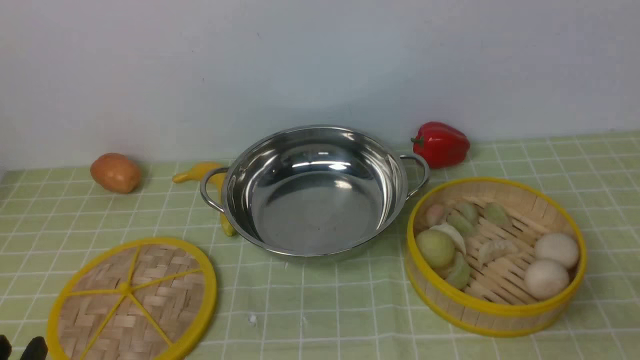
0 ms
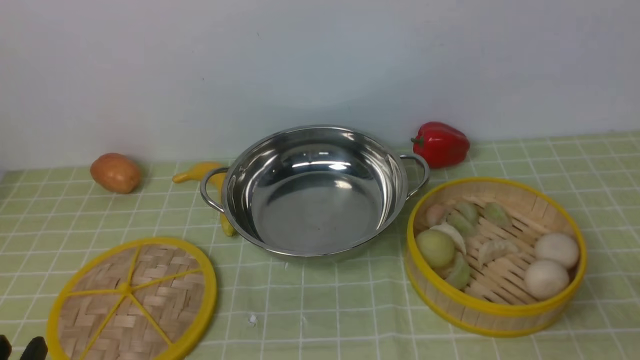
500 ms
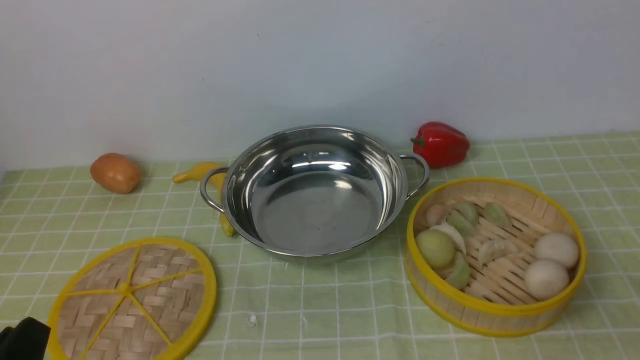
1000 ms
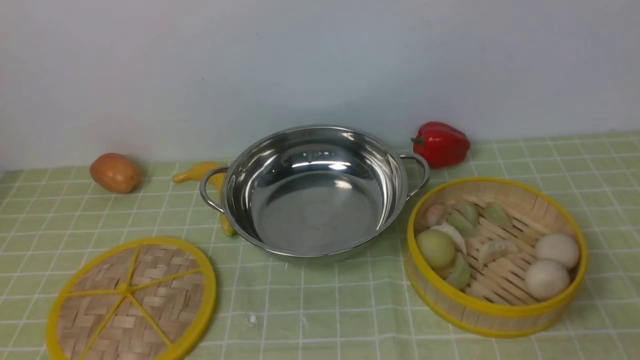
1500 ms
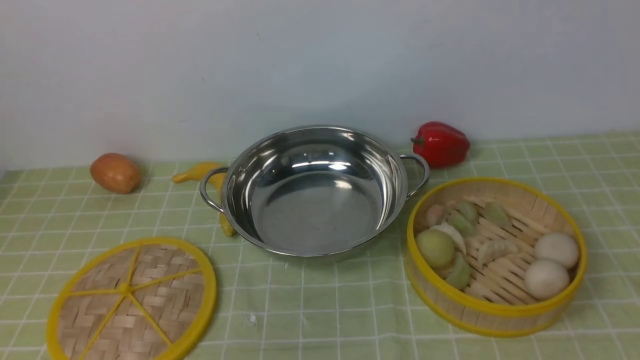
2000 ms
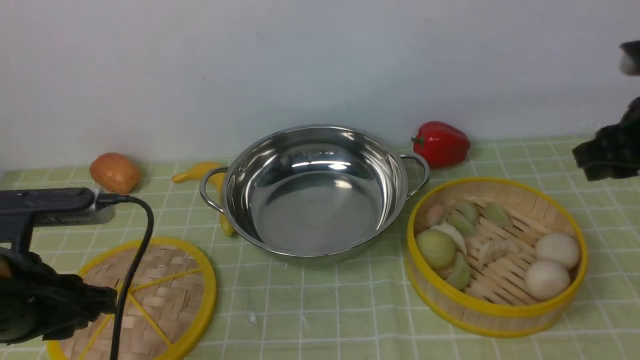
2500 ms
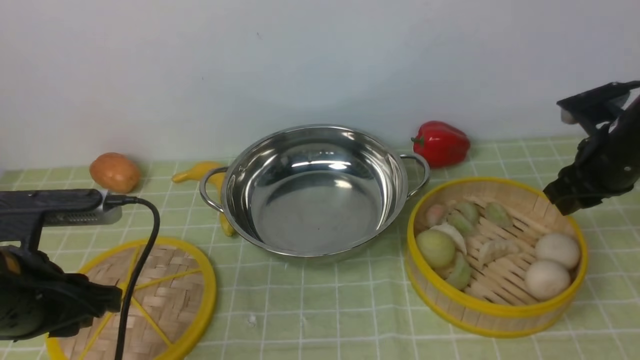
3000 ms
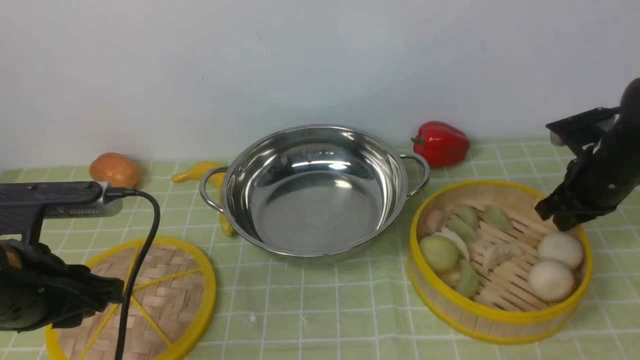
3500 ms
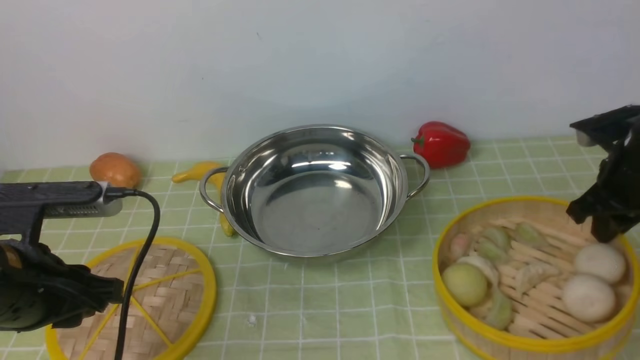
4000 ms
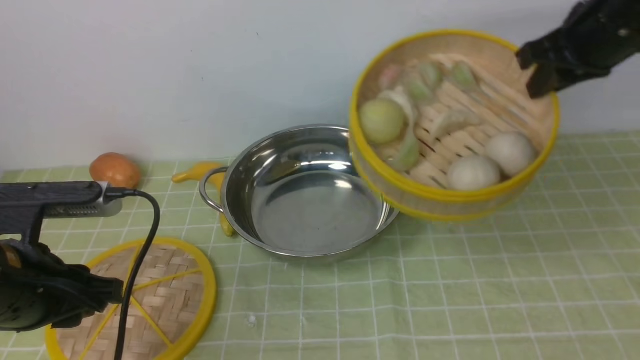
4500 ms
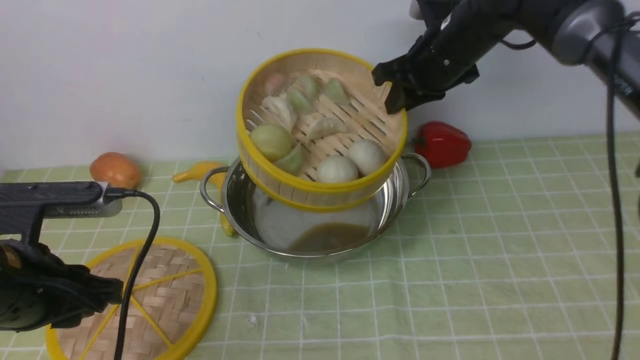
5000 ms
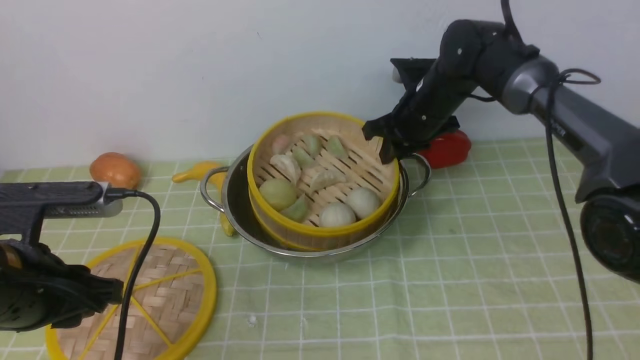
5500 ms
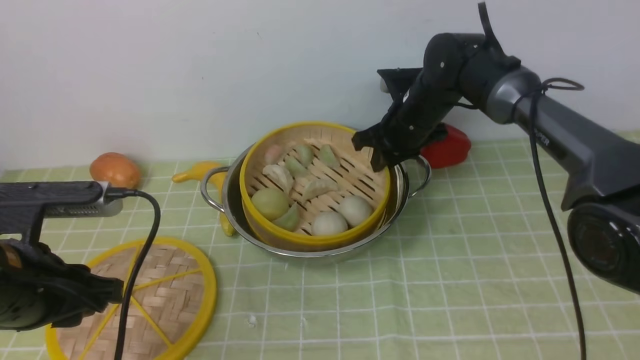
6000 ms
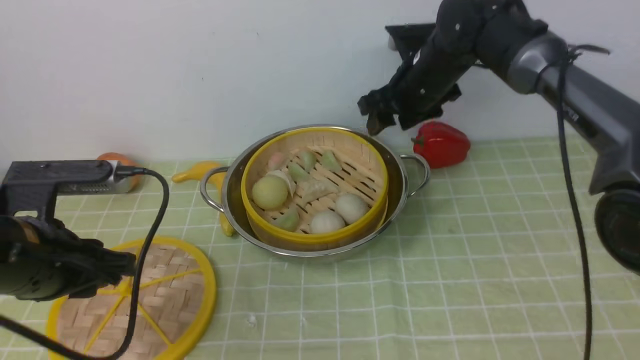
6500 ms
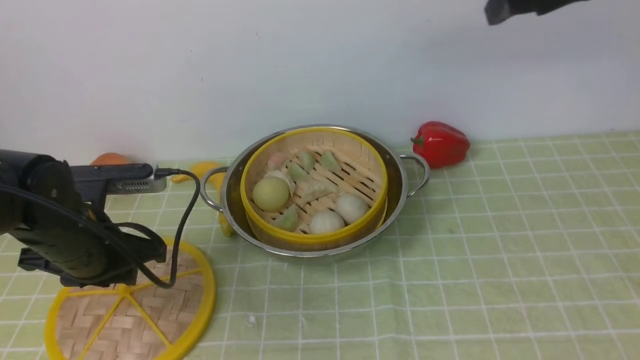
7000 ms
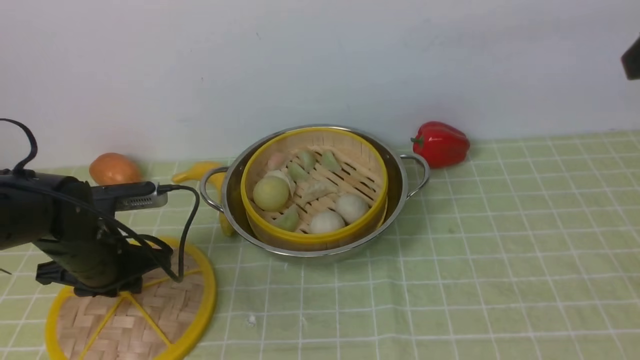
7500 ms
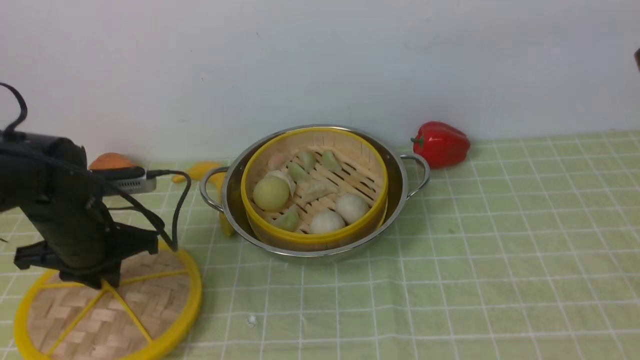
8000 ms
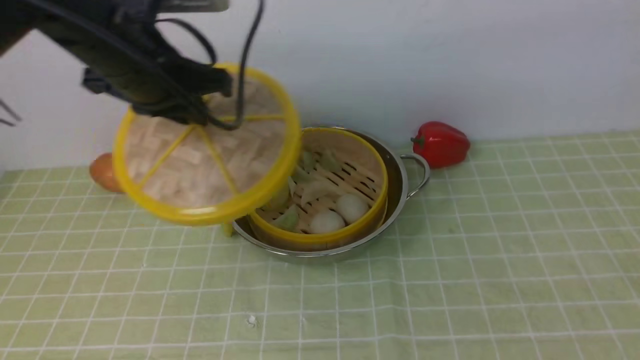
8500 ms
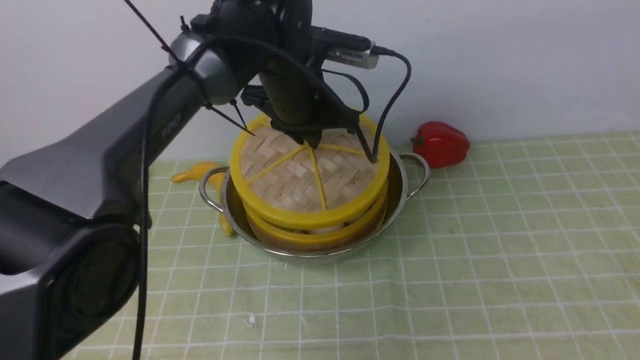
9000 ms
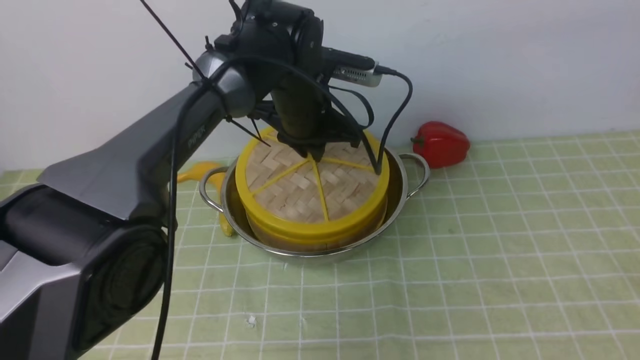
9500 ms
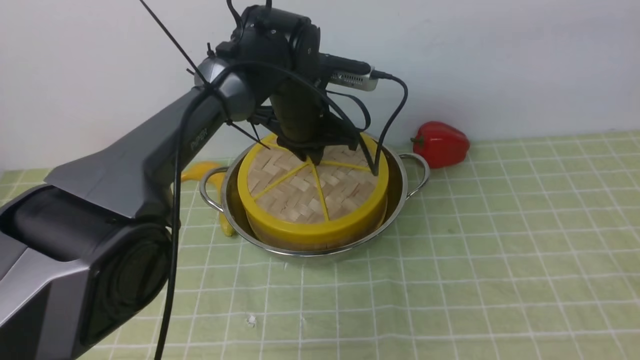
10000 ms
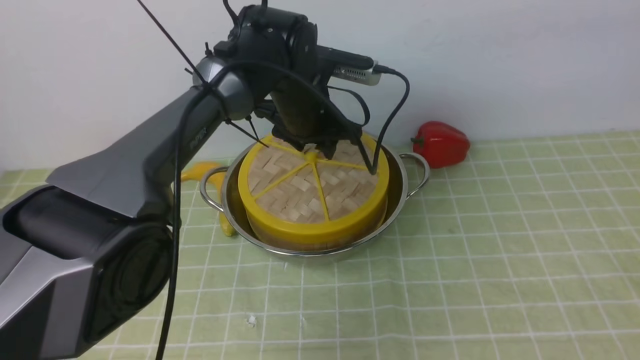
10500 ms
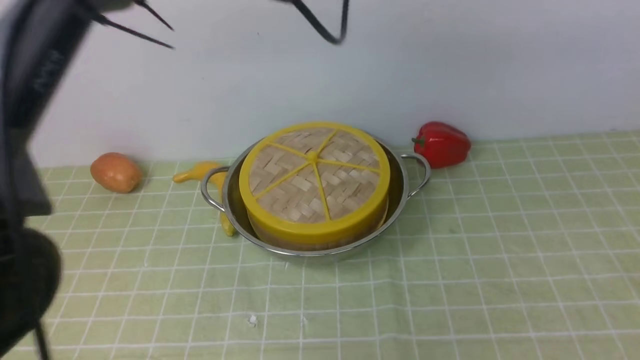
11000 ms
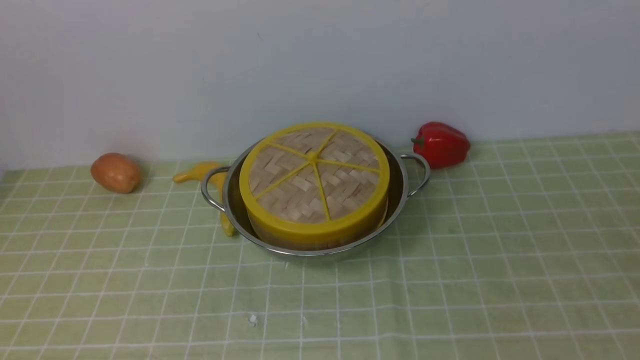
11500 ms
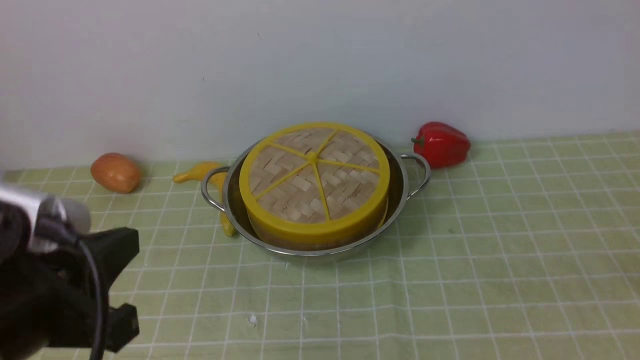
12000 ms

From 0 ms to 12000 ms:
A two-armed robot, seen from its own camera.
Task of the whole recording: place the steamer in the pot on the green tablecloth, and put the lid on the steamer.
Step, from 0 ms to 4000 ms: use the right arm to lift the steamer closest to it.
Step, from 4500 ms to 6000 ms: use the right arm to put the steamer into the iron steamer pot in the middle.
Step, from 7000 ms to 8000 ms: use the left arm to lift the lid of the steamer.
Step, from 8500 ms to 11000 ms: use the left arm to place the steamer lid on the steamer.
From 2000 ms to 4000 ms: The right gripper goes some 30 cm forward and downward. Meanwhile the left gripper shifts about 15 cm forward and downward.
From 4000 ms to 6000 ms: The right gripper moves to the left and forward, about 25 cm.
From 6000 ms to 8000 ms: The right gripper moves backward, upward and to the right, some 40 cm, and opens up; the left gripper heads forward and downward, covering about 15 cm.
From 8000 ms to 10000 ms: The left gripper goes some 25 cm to the right and forward.
From 10000 ms to 12000 ms: The left gripper travels backward and to the left by some 35 cm, and opens and closes again. The right gripper shifts approximately 20 cm backward and downward, and closes up.

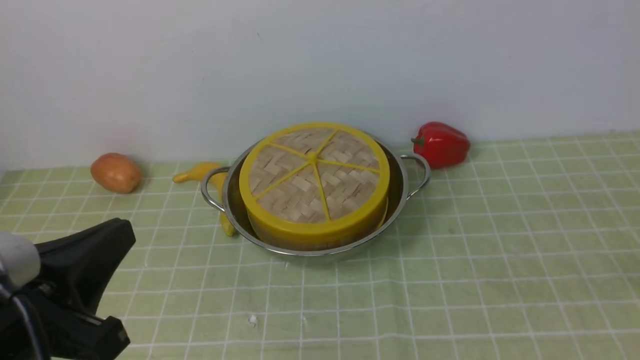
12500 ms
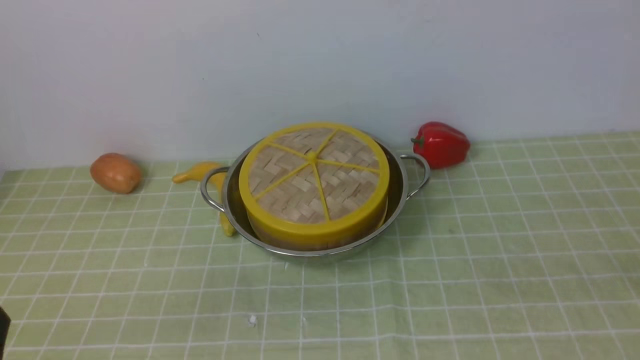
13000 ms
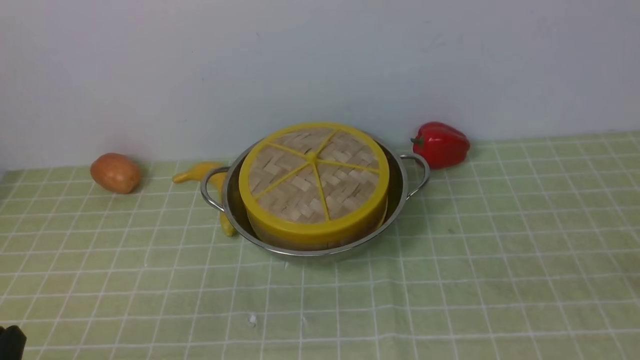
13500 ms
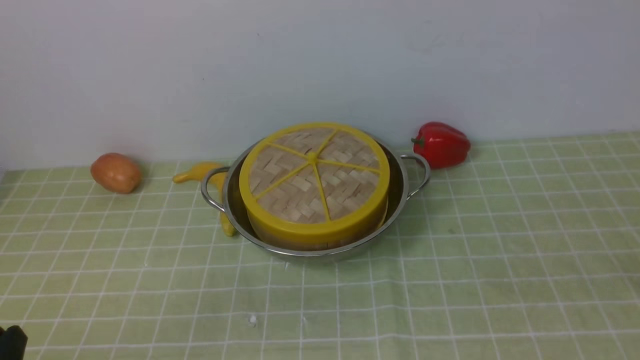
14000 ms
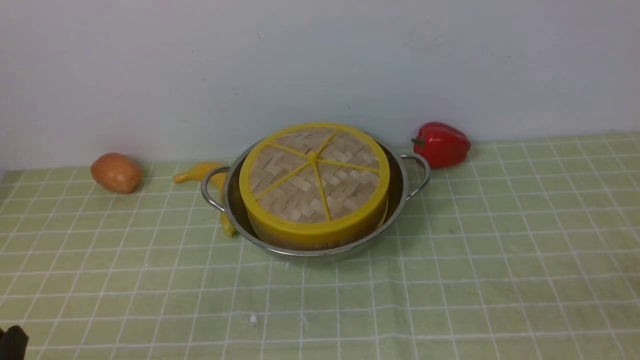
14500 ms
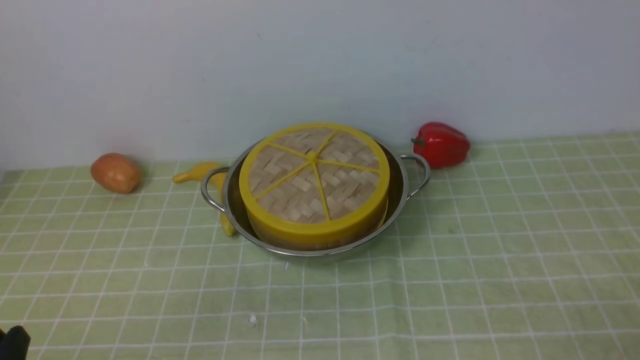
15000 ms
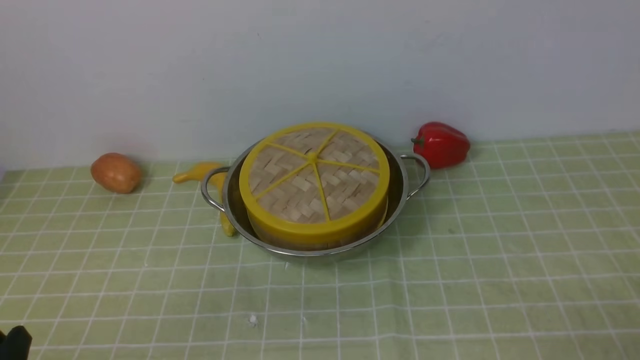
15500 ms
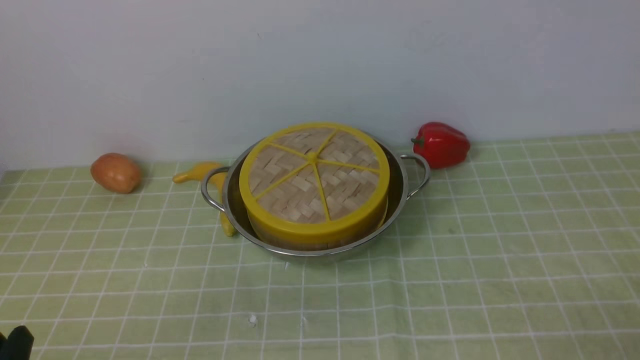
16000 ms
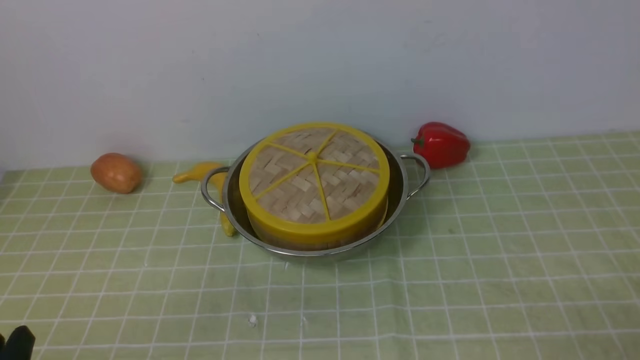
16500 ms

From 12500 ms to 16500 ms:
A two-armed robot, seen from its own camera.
Task of the whole recording: place the steamer in the pot on the green tablecloth, and put the lid on the steamer.
From 12500 ms to 14500 ms: The left gripper is displaced downward by about 10 cm.
